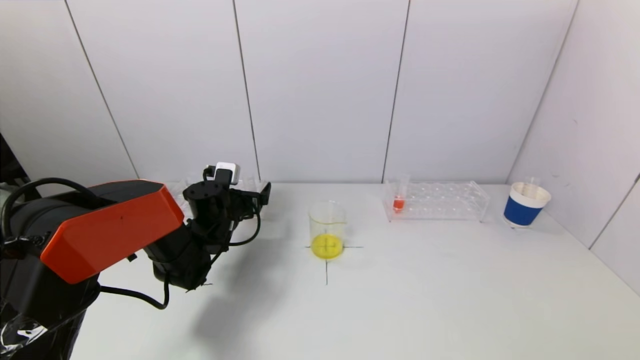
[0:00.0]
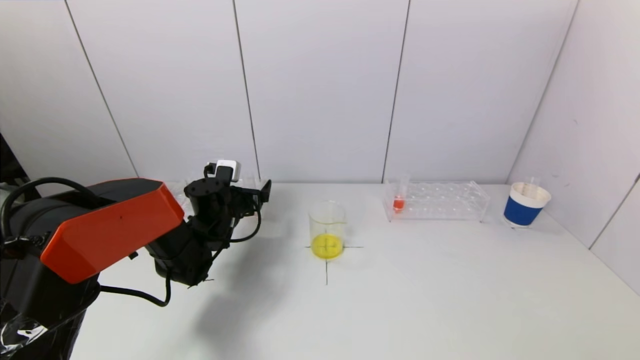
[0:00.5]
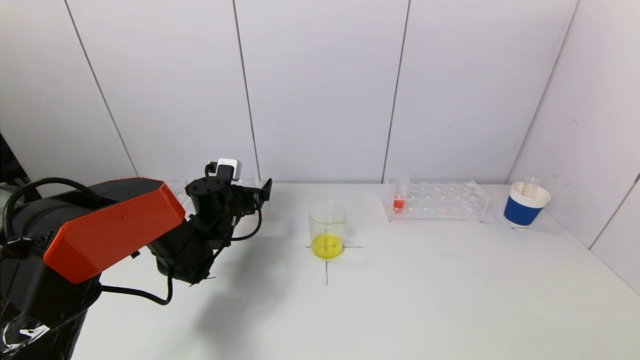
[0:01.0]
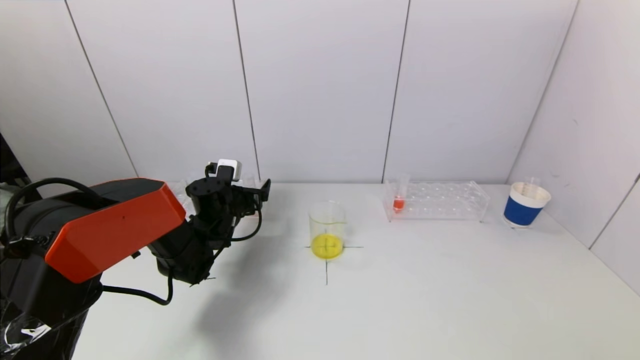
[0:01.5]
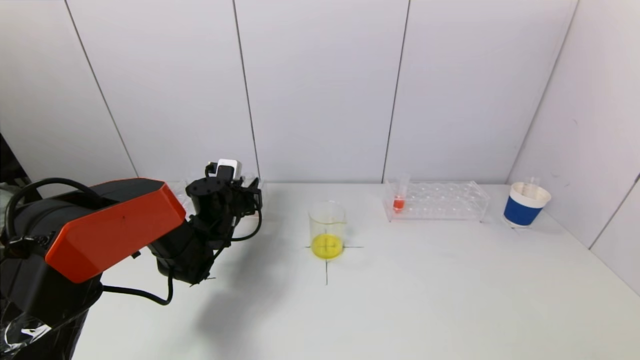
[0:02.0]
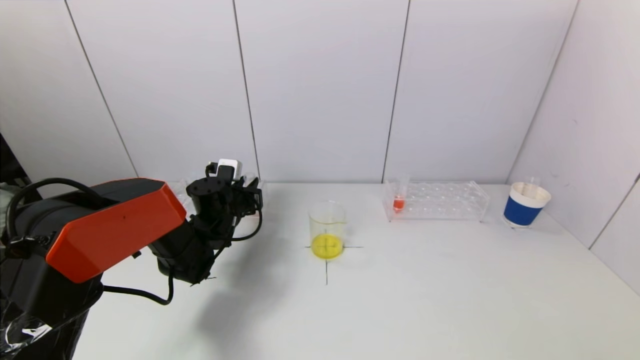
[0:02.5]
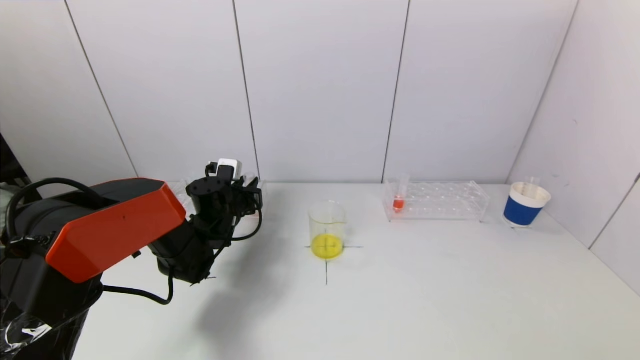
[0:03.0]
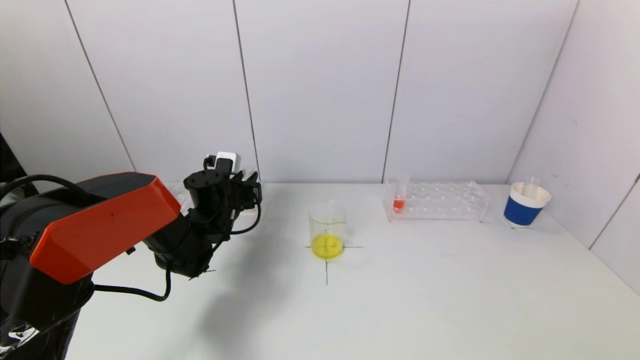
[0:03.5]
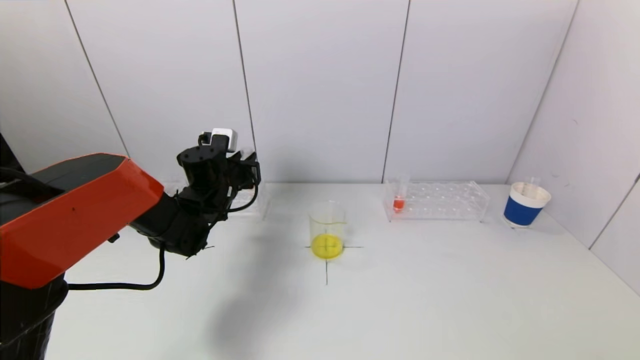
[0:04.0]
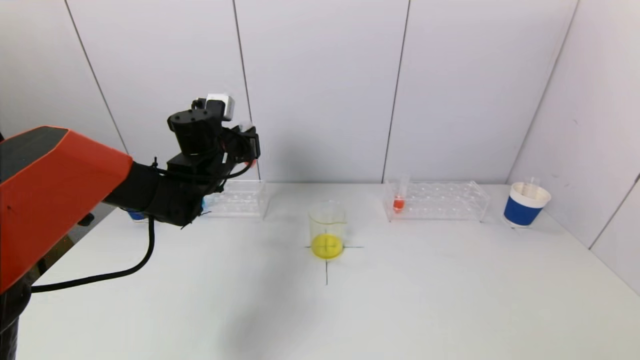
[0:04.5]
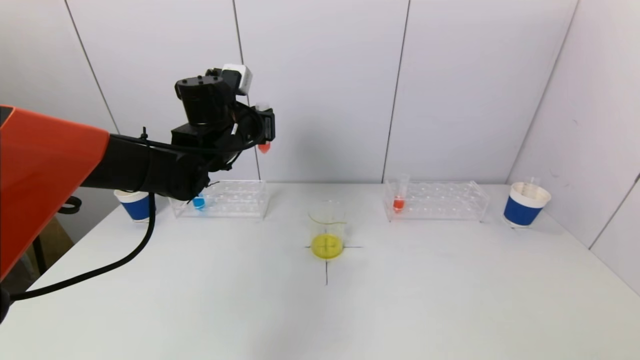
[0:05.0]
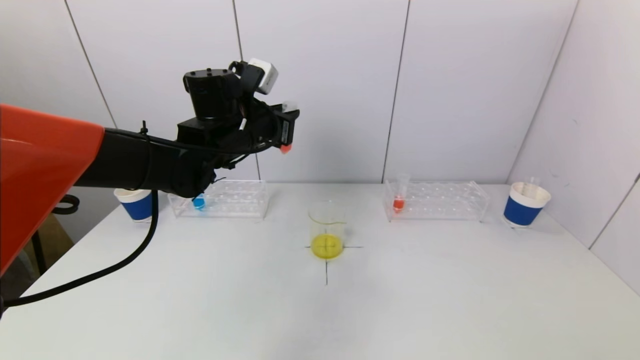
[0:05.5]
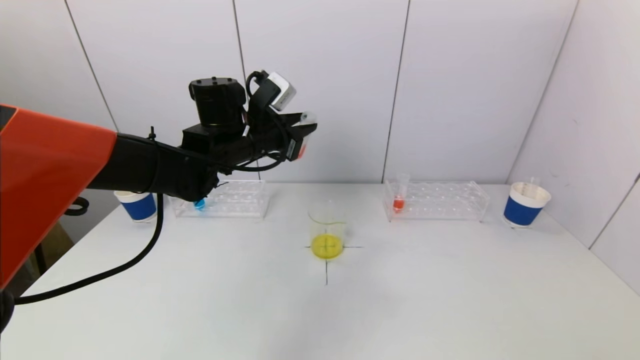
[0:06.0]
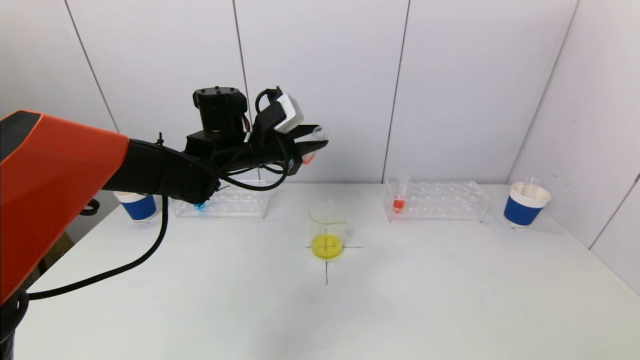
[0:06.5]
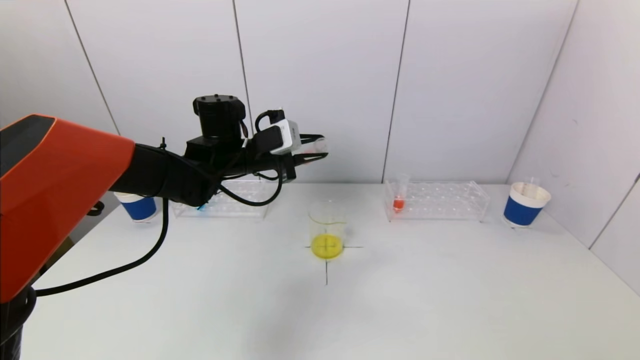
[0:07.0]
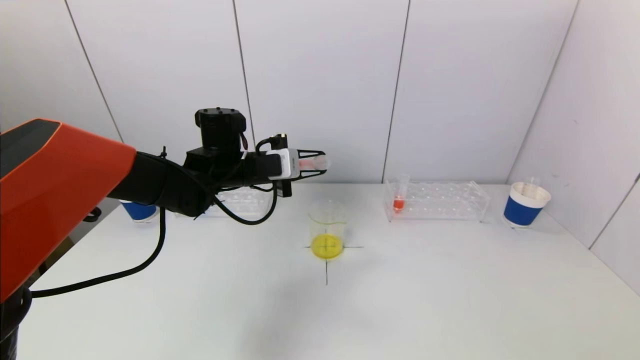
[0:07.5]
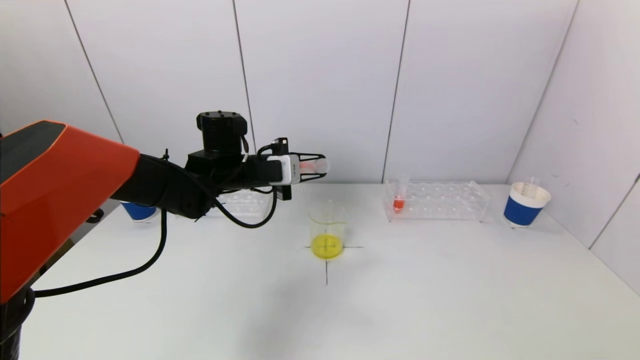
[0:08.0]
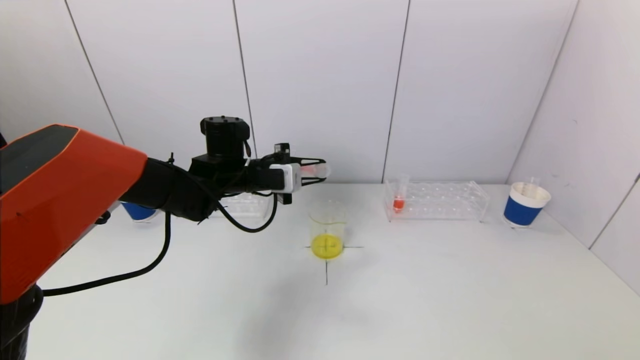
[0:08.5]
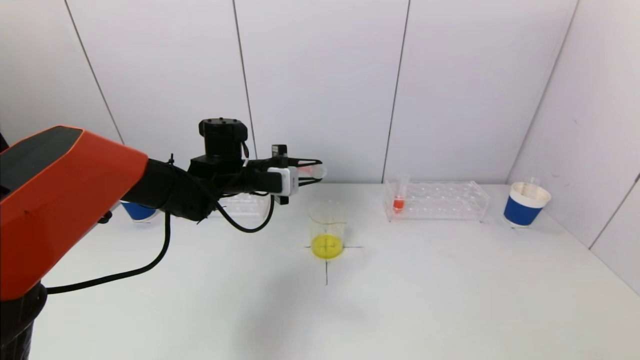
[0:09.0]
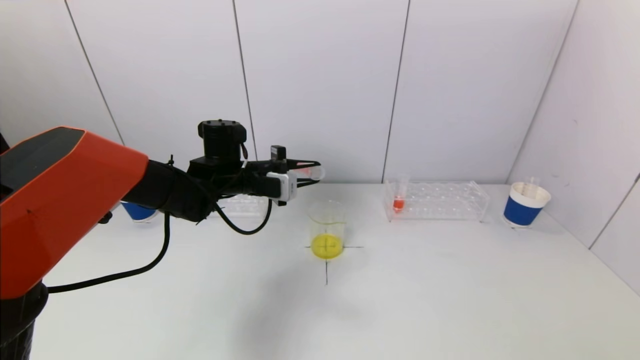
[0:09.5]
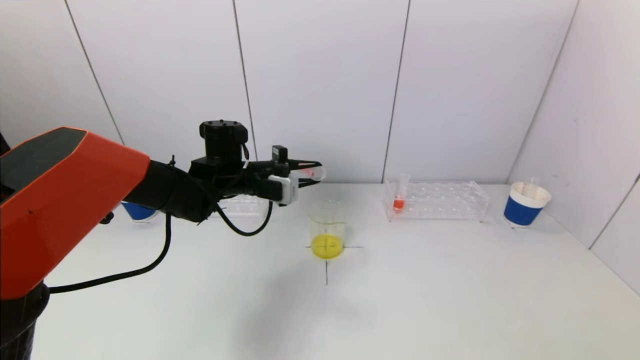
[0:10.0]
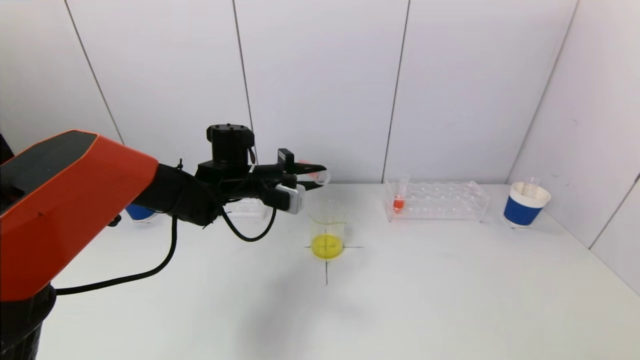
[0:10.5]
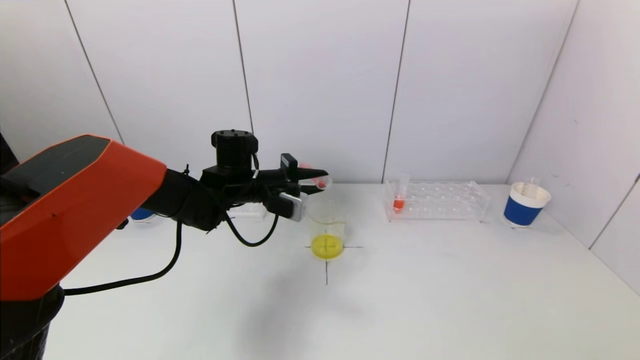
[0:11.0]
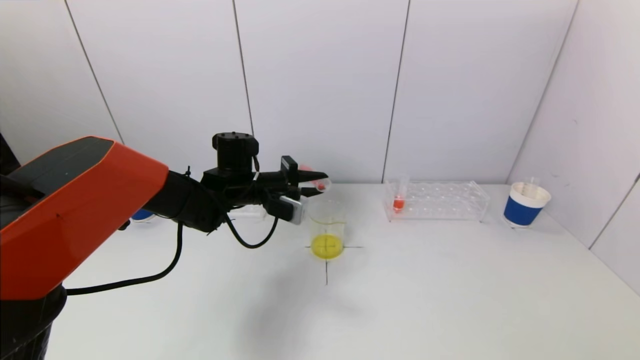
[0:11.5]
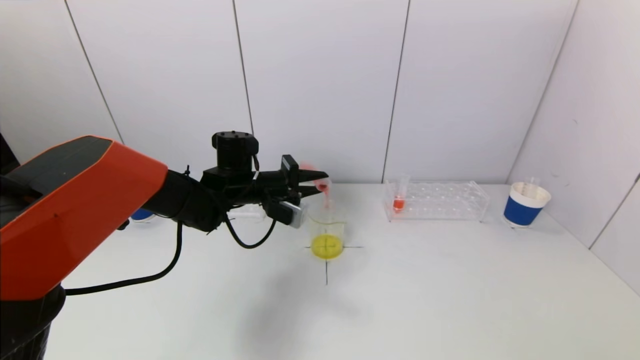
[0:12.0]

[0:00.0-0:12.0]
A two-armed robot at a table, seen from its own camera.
Task of the whole recording: pick up a test tube with pigment on left test tube rack and a test tube with pigment on right test tube rack by grippers and pour them into the beaker.
Step, 0:00.0 to 0:02.0: Grasp the red reagent with the left gripper.
0:00.0 to 0:02.0: The left gripper closes up.
0:02.0 to 0:04.0: The left gripper travels upward by approximately 5 cm.
0:04.0 to 0:06.0: The left gripper shifts some 10 cm upward and to the right.
0:06.0 to 0:08.0: The left gripper shifts roughly 5 cm downward.
0:08.0 to 0:10.0: The grippers move only a little.
0:10.0 to 0:12.0: The grippers move only a little.

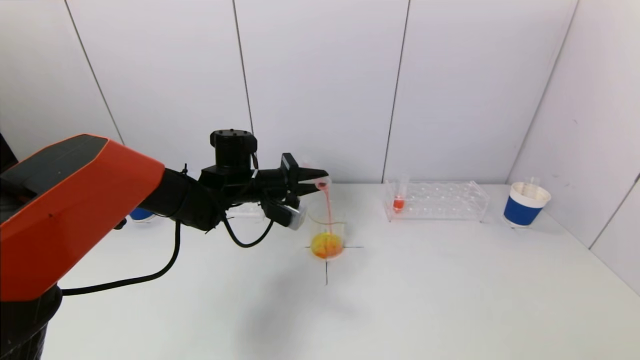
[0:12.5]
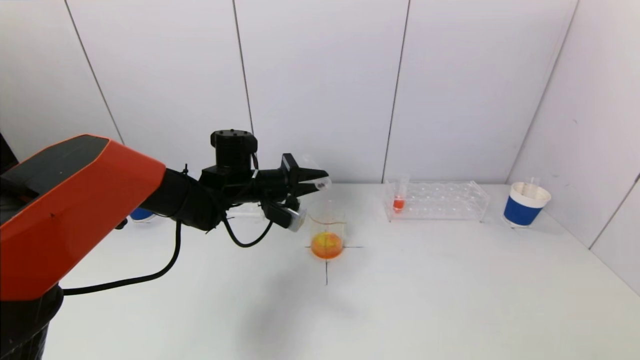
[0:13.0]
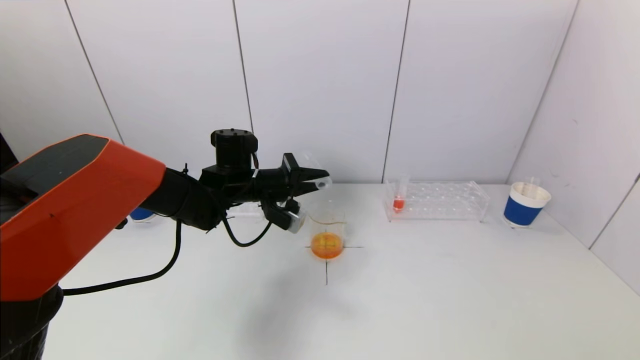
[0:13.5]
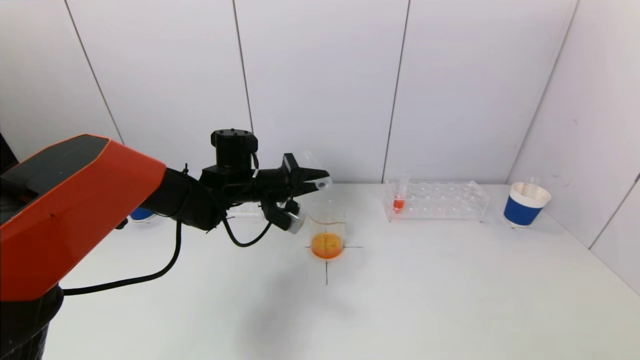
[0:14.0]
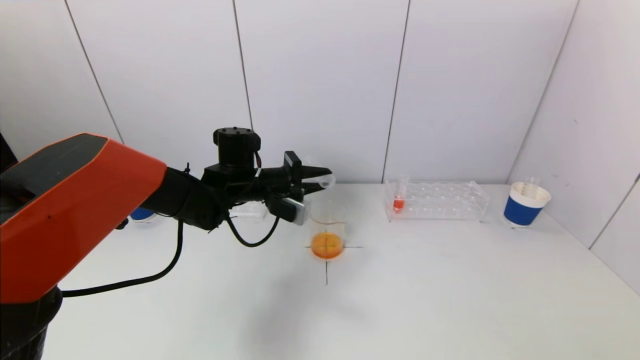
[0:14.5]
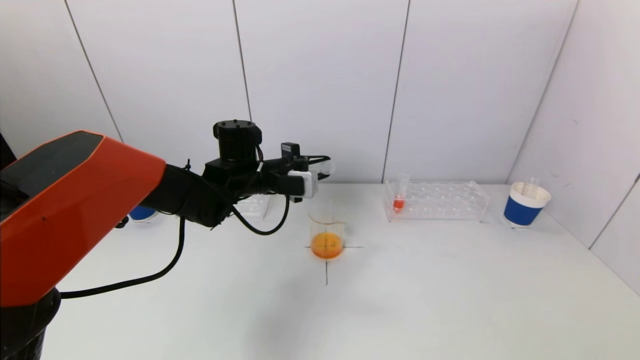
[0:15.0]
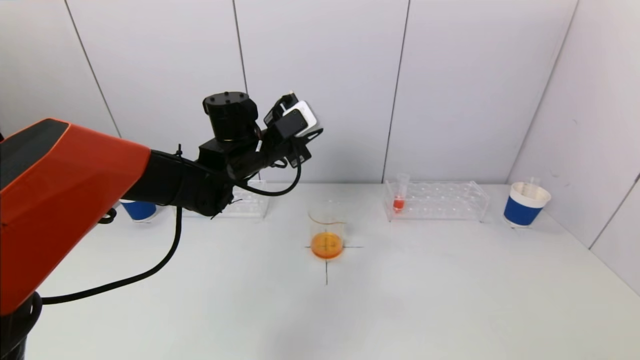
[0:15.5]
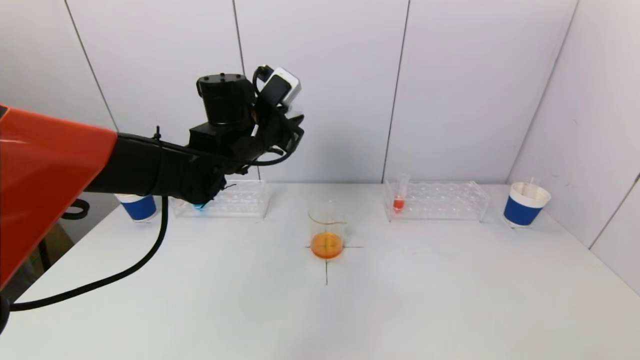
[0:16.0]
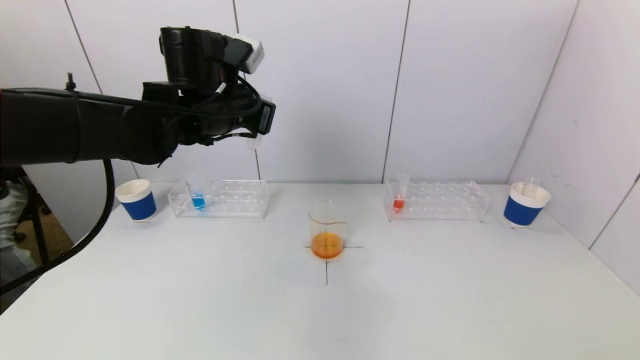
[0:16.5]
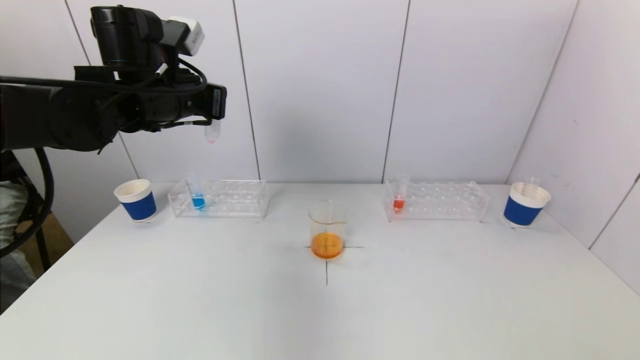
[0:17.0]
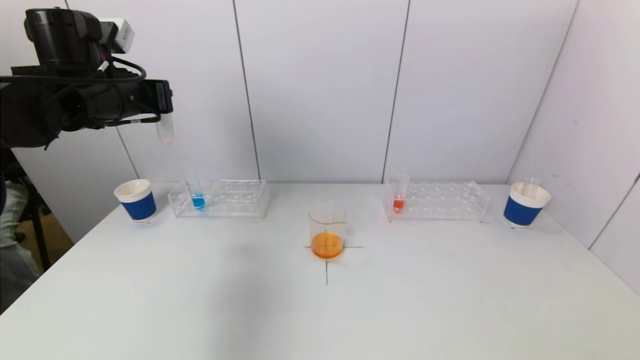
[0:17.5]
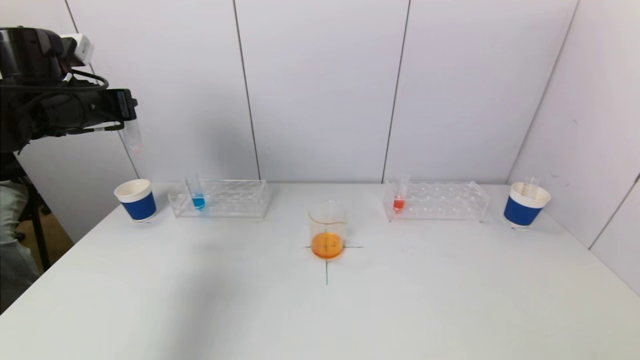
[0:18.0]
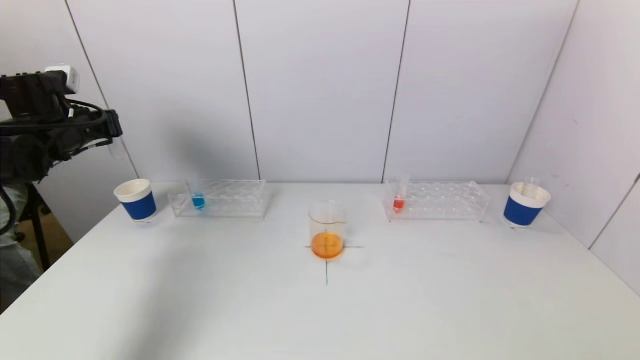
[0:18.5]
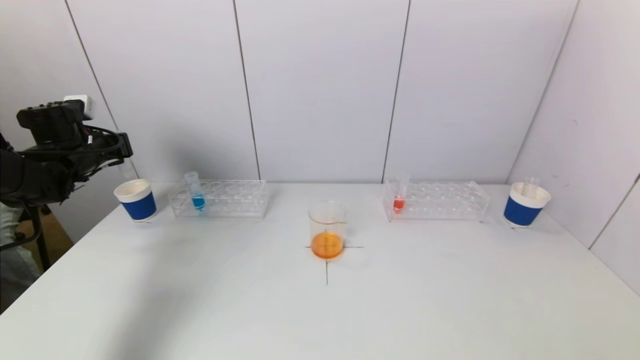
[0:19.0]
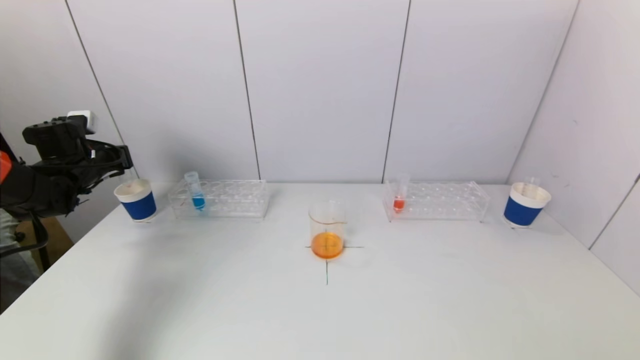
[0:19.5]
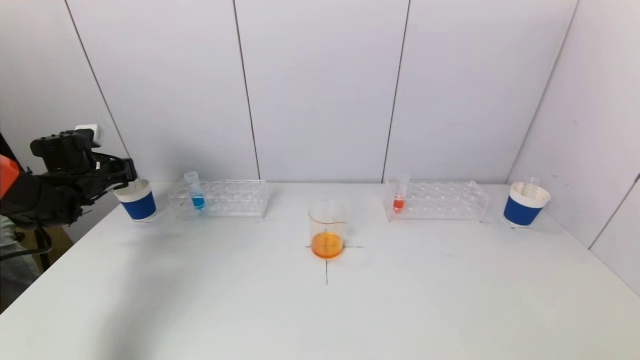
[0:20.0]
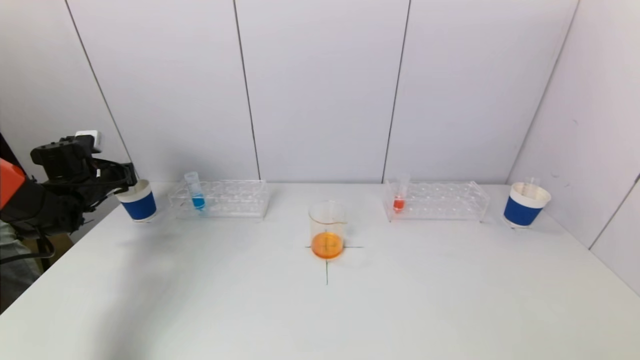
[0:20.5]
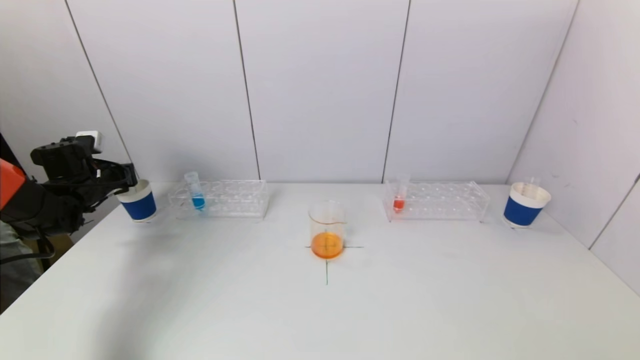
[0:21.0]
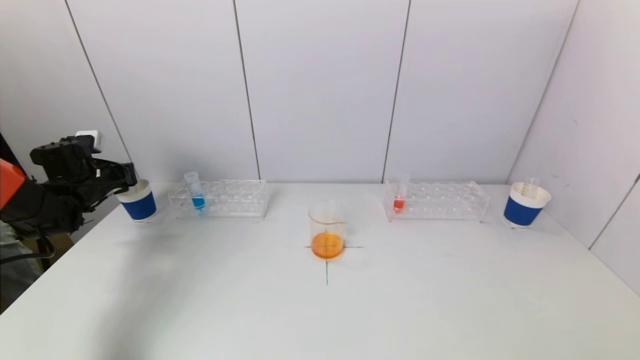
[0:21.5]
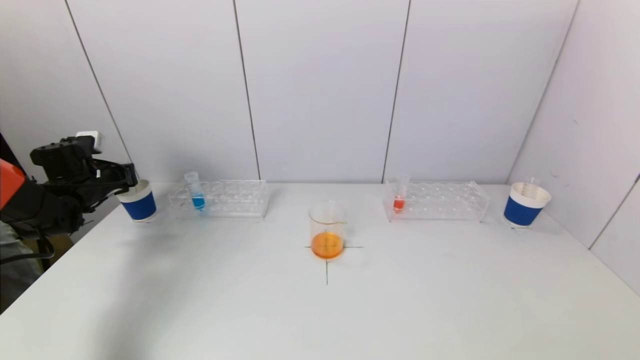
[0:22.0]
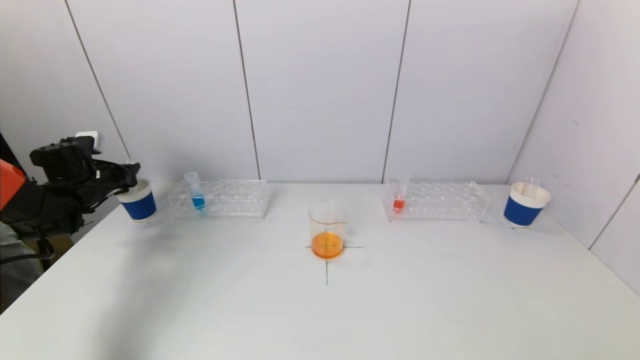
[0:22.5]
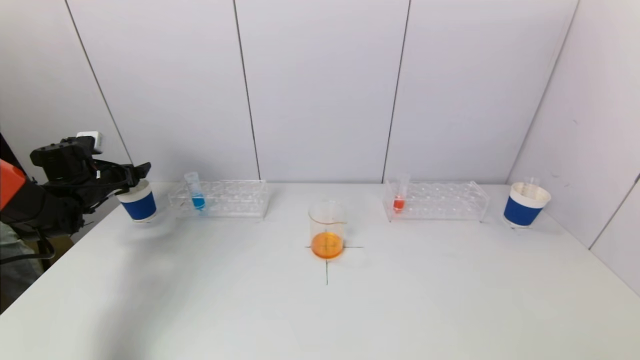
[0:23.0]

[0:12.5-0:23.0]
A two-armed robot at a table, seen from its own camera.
Task of the whole recording: pick up a test tube with pigment on left test tube rack and a test tube with pigment on right test tube rack by grippers and pour them into the beaker.
Step, 0:14.5 to 0:23.0: Place the test tube into the paper cup with the left gripper.
0:12.5 to 0:14.5: There are only small adjustments of the grippers.
0:14.5 to 0:16.5: The left gripper shifts approximately 15 cm upward.
0:16.5 to 0:19.0: The left gripper shifts about 30 cm to the left.
0:19.0 to 0:21.0: The left gripper heads downward, covering about 5 cm.
